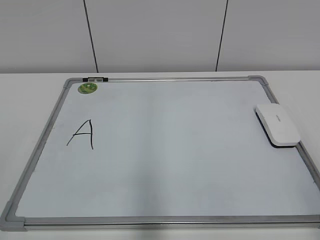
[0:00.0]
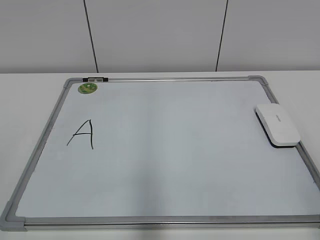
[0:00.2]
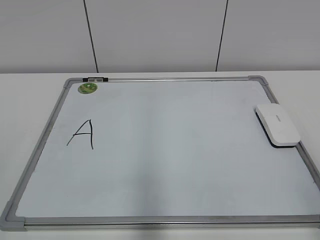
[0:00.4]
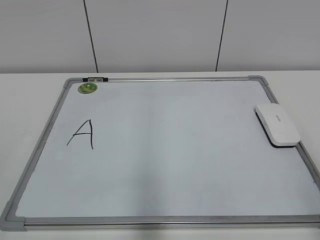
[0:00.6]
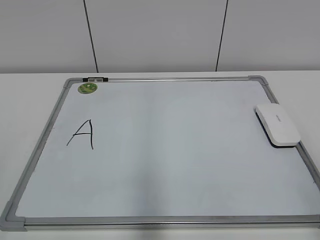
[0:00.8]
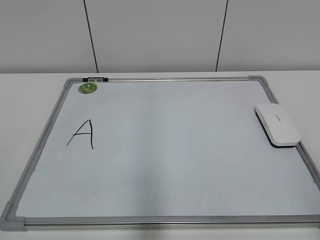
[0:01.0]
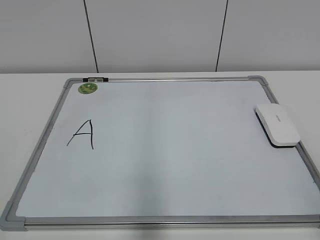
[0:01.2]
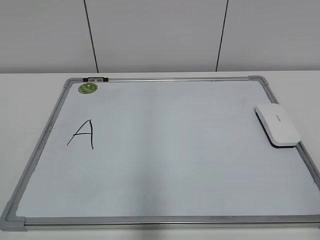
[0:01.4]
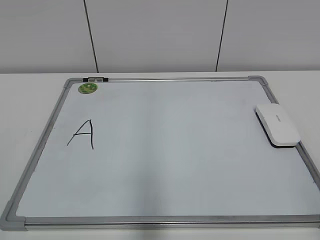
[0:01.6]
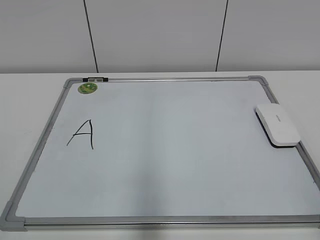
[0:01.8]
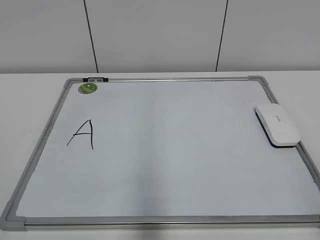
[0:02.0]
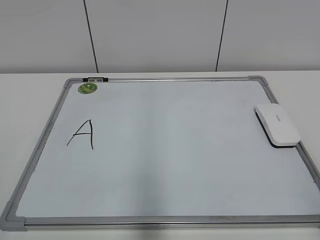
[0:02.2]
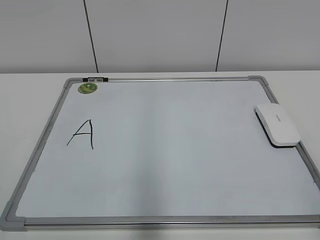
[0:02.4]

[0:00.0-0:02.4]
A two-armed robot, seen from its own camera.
Task of the whole recording: pick up the eraser on the blackboard and erase the letter "a".
0:01.2 to 0:02.4: Both grippers stay put.

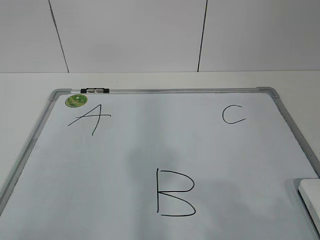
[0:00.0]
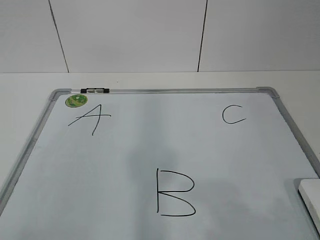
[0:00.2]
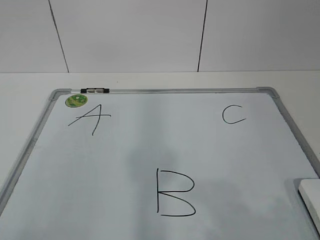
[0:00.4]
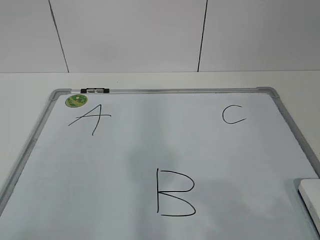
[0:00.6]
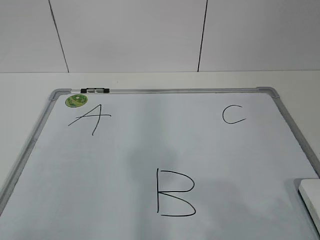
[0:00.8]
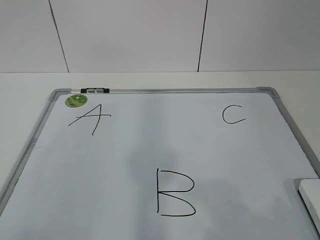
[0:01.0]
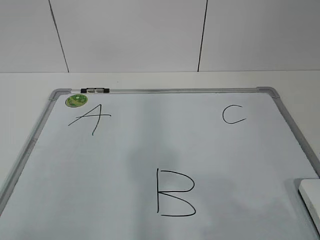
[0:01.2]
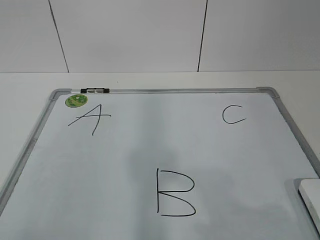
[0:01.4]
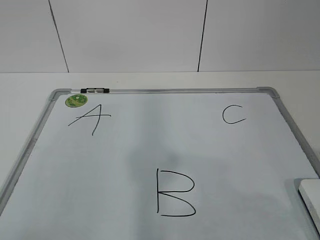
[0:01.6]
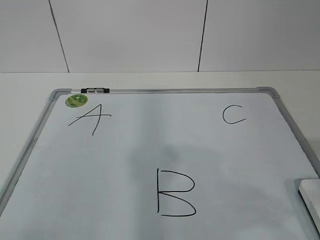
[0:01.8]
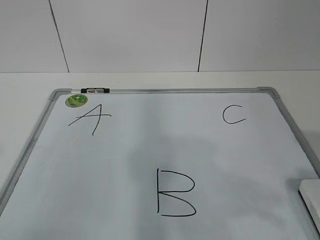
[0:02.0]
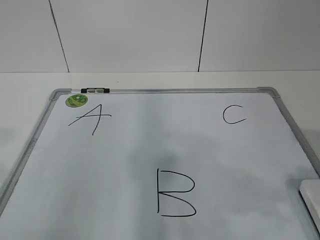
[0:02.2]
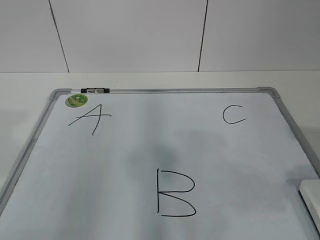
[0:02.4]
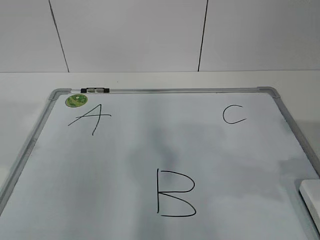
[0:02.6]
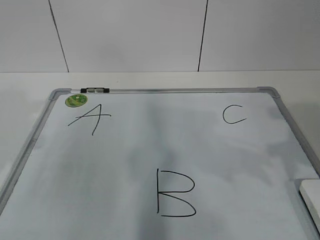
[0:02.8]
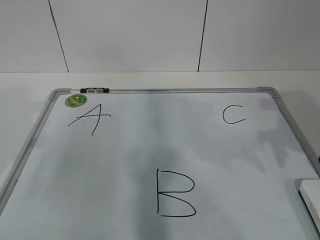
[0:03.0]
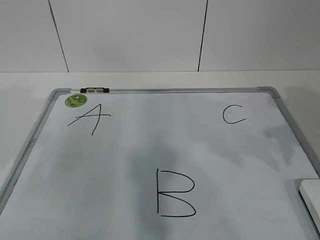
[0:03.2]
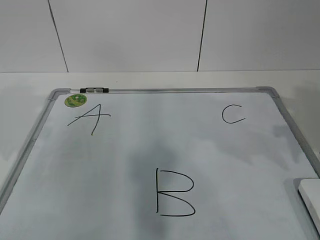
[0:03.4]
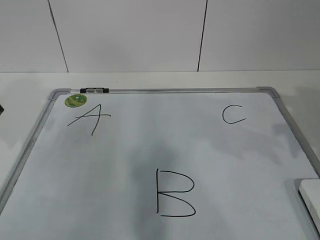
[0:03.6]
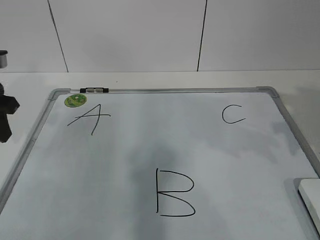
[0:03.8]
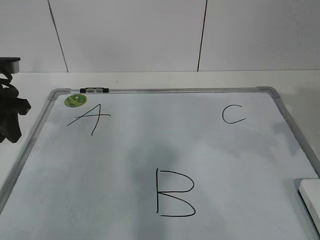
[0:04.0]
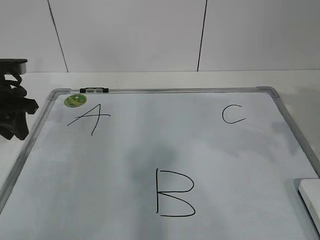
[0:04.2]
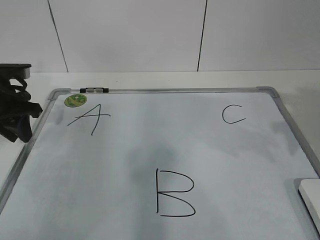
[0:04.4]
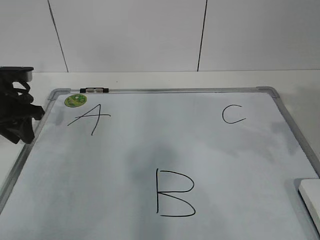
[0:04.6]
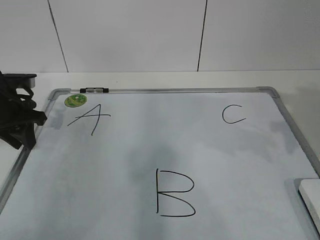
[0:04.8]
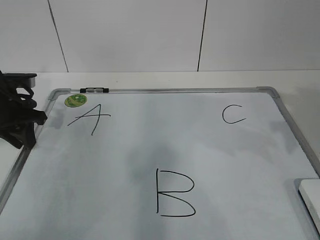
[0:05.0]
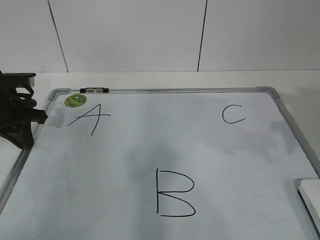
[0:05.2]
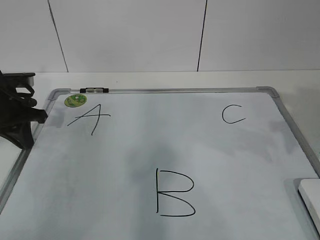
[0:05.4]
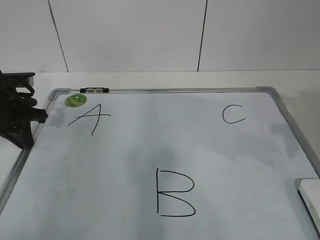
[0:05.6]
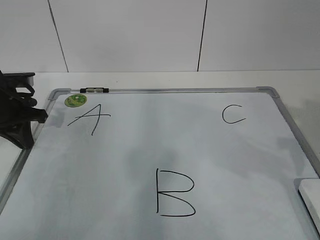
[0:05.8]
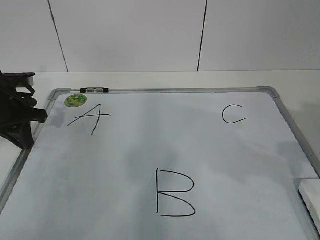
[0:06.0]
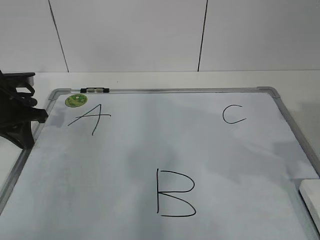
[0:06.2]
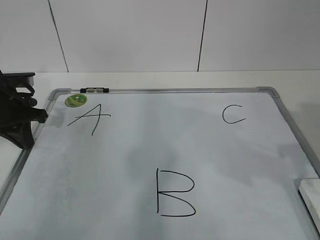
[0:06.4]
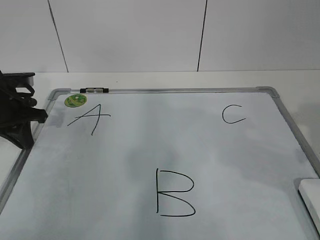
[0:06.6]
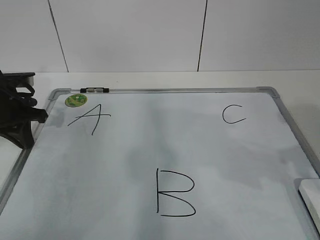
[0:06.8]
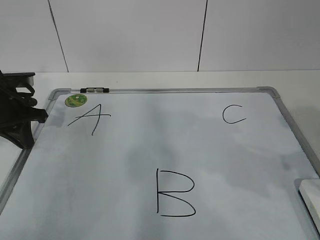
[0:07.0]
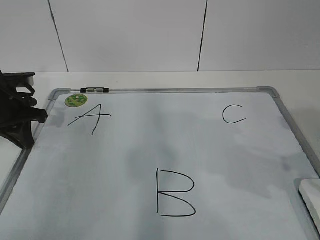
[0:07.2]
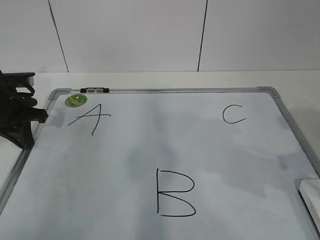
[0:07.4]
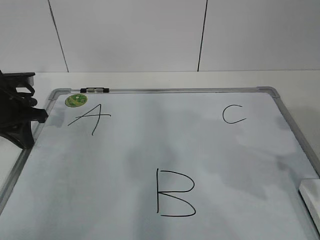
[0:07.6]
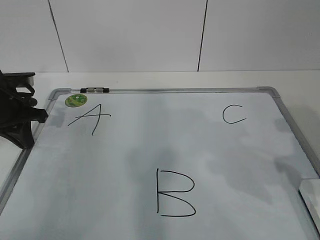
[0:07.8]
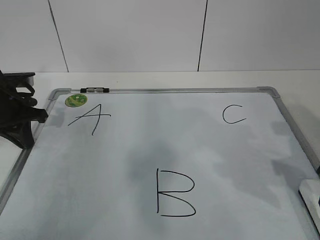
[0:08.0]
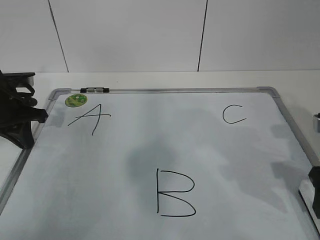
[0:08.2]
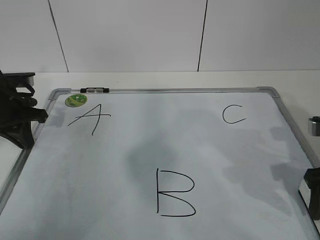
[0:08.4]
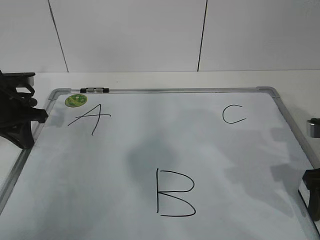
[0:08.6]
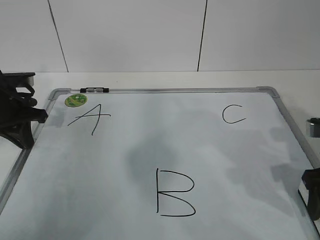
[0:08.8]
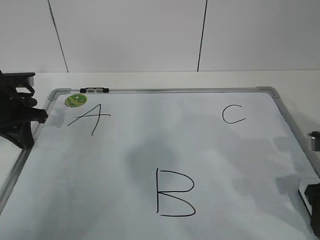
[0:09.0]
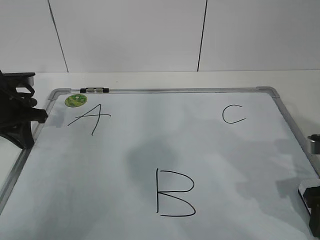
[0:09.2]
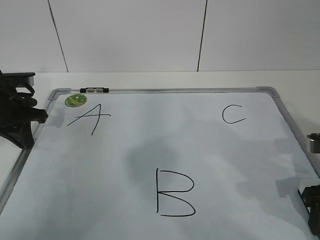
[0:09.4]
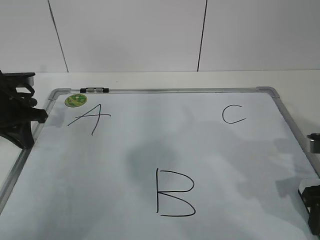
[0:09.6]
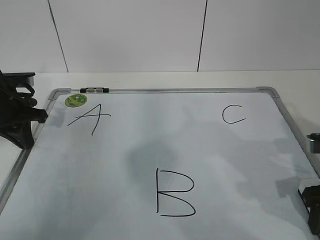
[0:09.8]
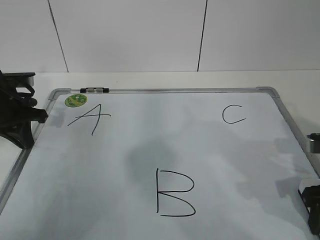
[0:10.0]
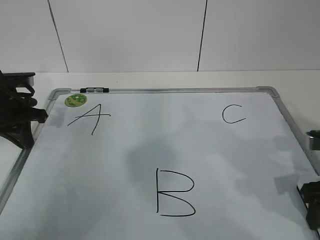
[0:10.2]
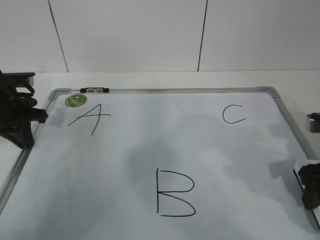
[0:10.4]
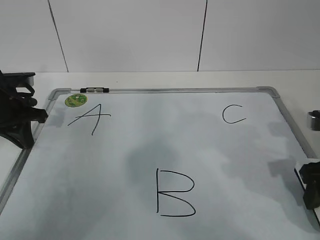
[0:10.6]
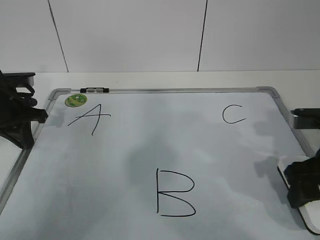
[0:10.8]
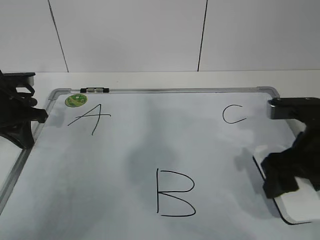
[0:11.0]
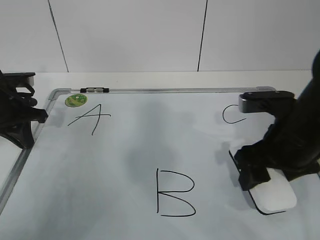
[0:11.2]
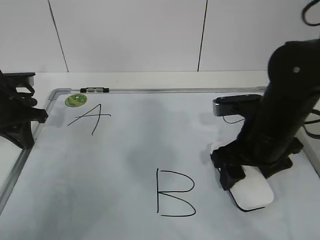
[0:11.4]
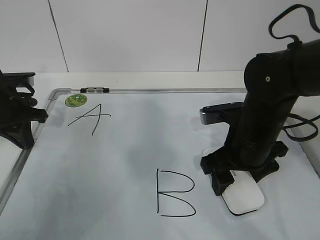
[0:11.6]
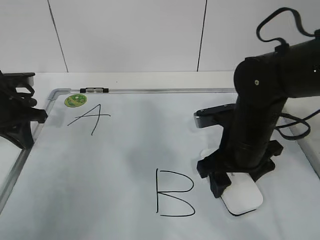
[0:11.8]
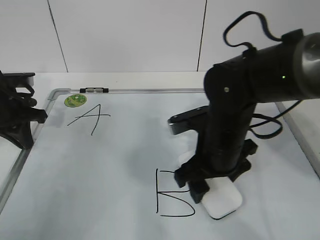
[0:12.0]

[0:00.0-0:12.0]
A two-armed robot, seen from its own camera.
Task of the whole recording: pick up the eraser on the blackboard and erase the letter "B".
Step, 0:00.0 to 0:04.2: Hold the drawing board steady with your left hand.
Step, 0:04.4 to 0:08.2: Grab the eraser with your right hand.
0:01.6 to 0:03.0: The two grippers go approximately 20 cm forward.
0:03.0 to 0:04.4: The left gripper moves forward and downward, about 15 cm.
0:04.4 to 0:06.0: The left gripper closes up.
0:07.6 to 0:09.0: The right gripper is displaced downward by some 10 cm.
0:09.0 to 0:10.4: The grippers make only small movements.
0:10.4 to 0:12.0: The right gripper shifts approximately 20 cm to the left.

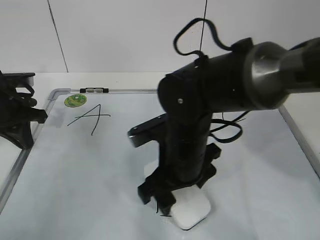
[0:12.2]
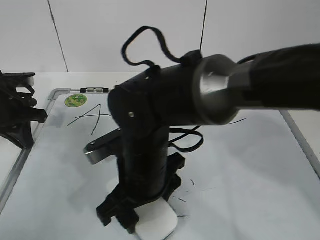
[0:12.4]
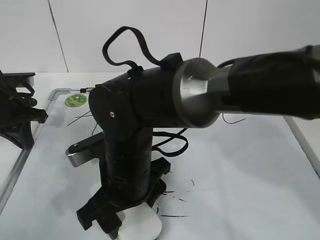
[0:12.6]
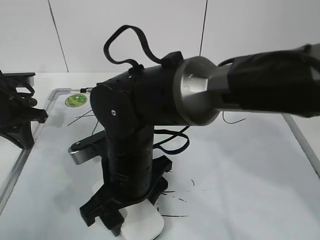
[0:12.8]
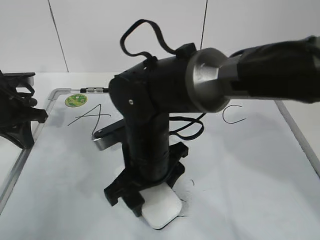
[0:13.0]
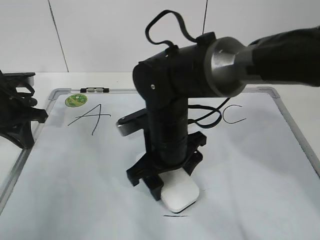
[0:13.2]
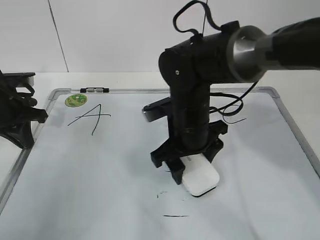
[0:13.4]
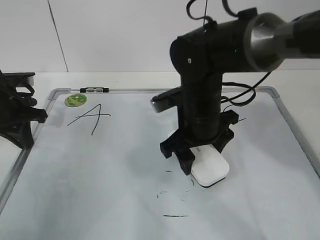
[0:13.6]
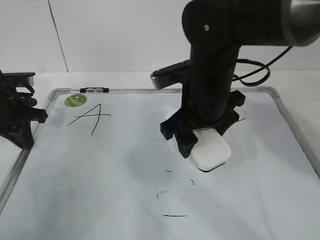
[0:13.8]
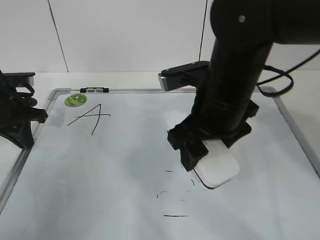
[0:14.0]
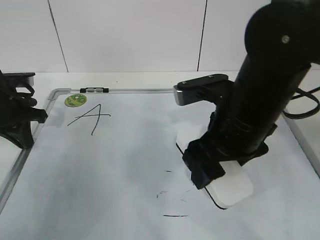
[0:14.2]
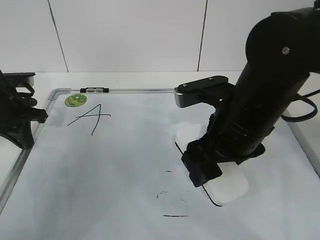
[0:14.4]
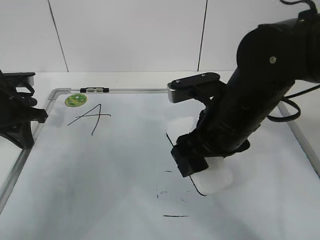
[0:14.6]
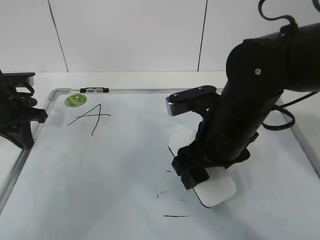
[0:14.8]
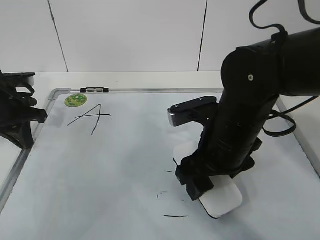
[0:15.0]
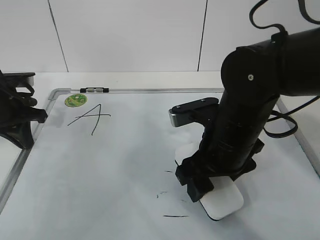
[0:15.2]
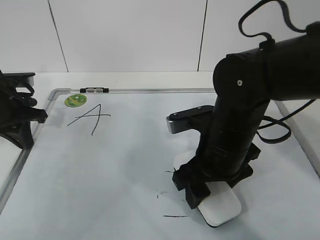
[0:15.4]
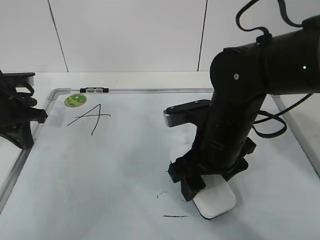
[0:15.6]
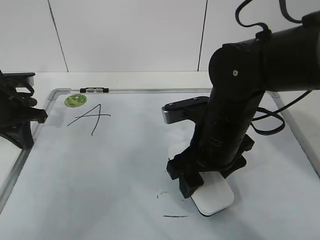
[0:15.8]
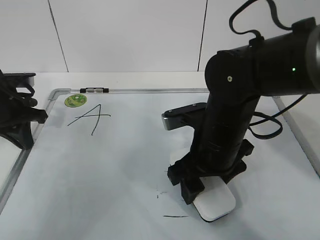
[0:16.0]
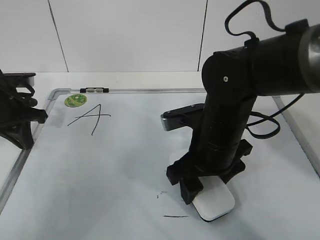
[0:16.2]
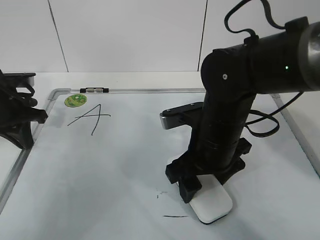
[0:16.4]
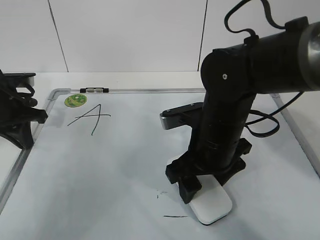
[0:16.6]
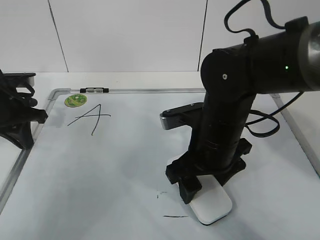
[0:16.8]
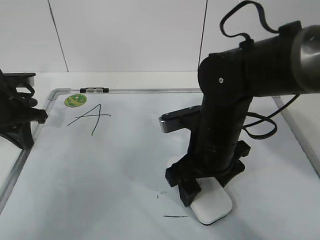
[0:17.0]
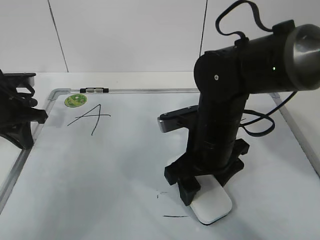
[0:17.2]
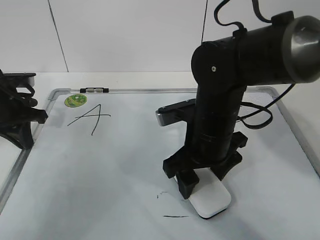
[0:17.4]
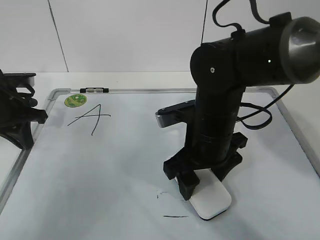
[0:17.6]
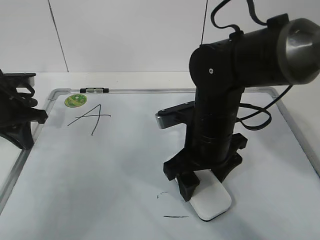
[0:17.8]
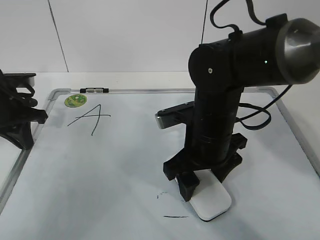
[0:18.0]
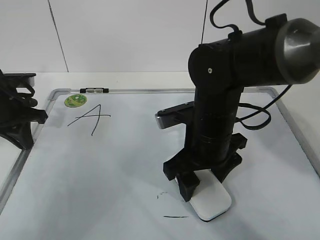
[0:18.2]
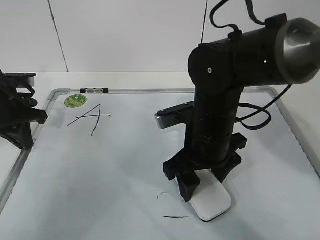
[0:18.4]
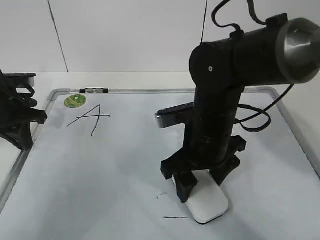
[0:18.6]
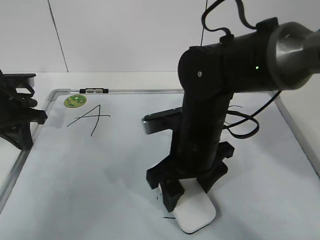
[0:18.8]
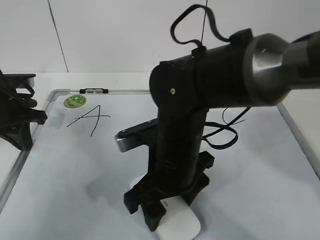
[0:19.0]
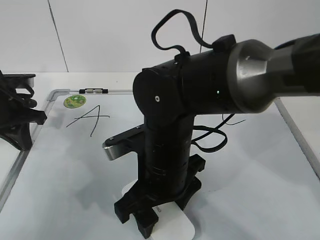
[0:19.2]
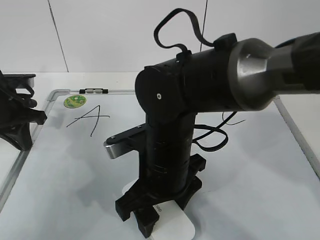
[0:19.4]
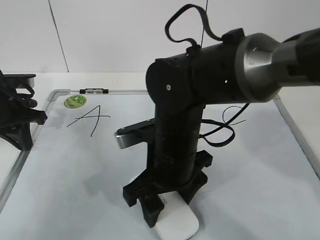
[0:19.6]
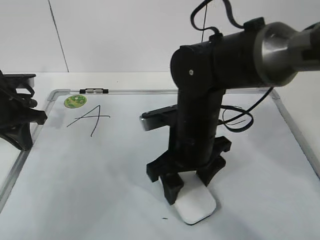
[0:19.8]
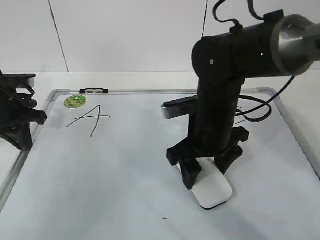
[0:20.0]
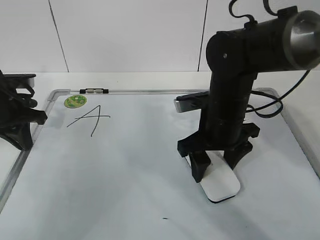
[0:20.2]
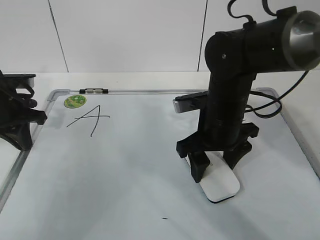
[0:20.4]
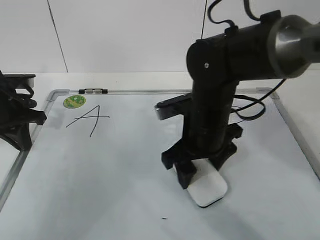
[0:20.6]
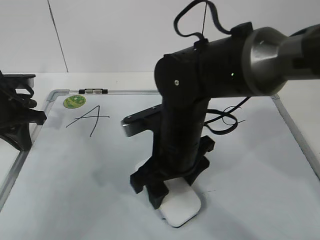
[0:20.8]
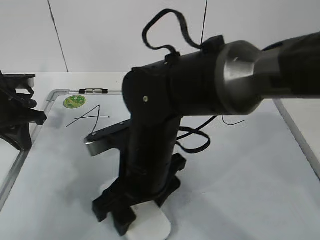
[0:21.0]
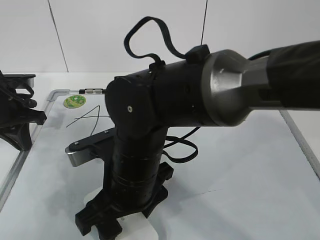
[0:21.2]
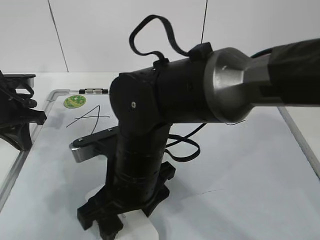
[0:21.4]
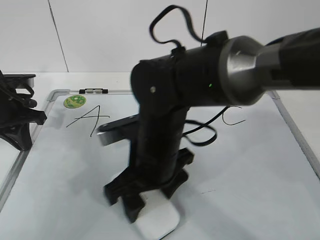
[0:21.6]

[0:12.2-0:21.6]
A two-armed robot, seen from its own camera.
Task of the whole recording: pick up the eraser on the blackboard and erase the letter "B".
Step, 0:13.8 to 0:14.2: Grab the eraser with your right hand.
Step, 0:14.4 to 0:21.4: Erase the letter B with your right hand.
0:12.2 to 0:13.8: The right gripper moves upward and forward, some 10 cm, and travels to the left and back again, roughly 10 cm each way.
0:13.8 to 0:15.4: The right gripper moves backward, roughly 5 cm.
0:15.4 to 0:17.0: The grippers stay close to where they were, moving slightly.
0:17.0 to 0:18.4: The two grippers keep their place.
0:18.4 to 0:20.0: The right gripper travels to the left and back again, approximately 5 cm each way.
0:20.0 to 0:21.6: The right gripper heads to the left and backward, covering about 10 cm.
